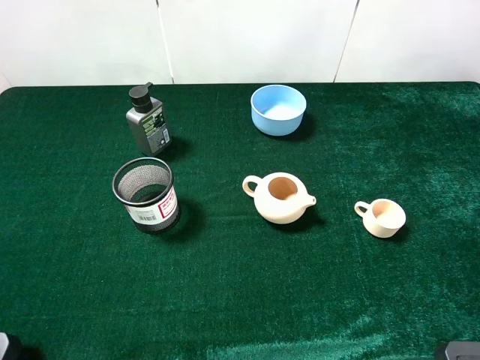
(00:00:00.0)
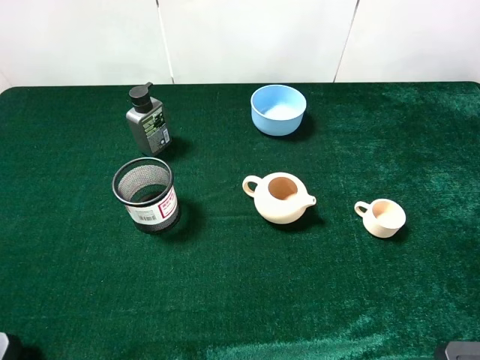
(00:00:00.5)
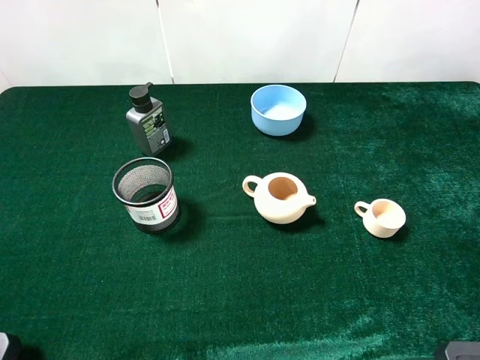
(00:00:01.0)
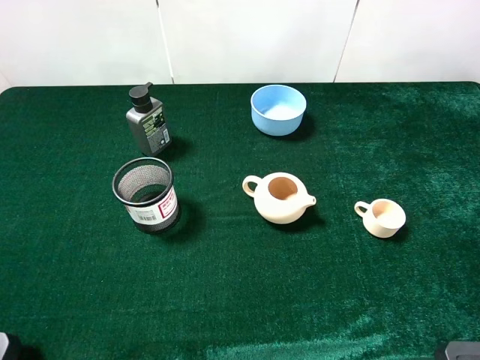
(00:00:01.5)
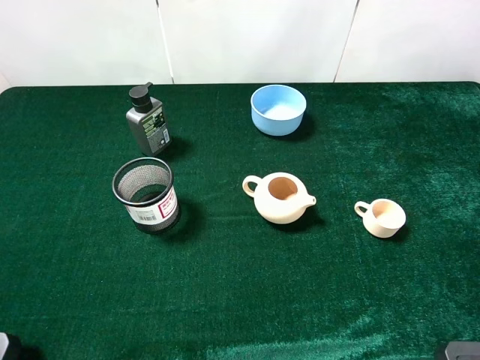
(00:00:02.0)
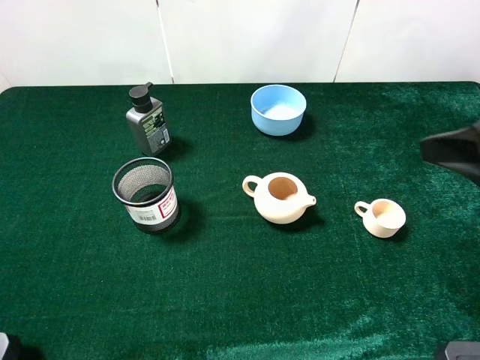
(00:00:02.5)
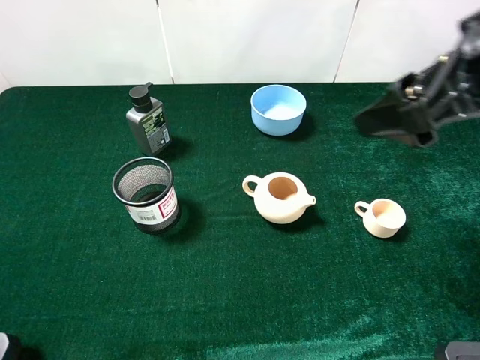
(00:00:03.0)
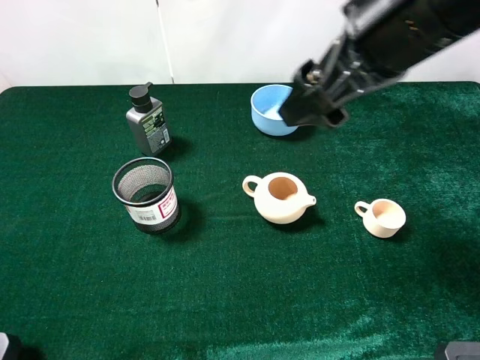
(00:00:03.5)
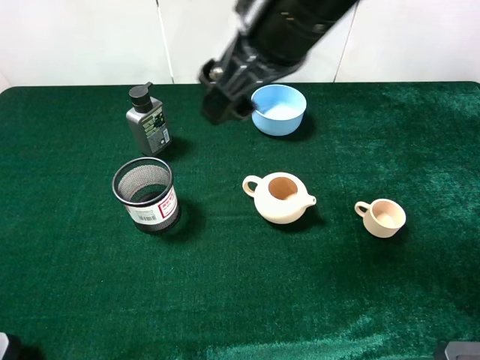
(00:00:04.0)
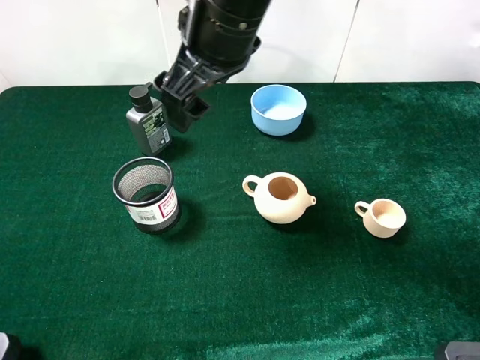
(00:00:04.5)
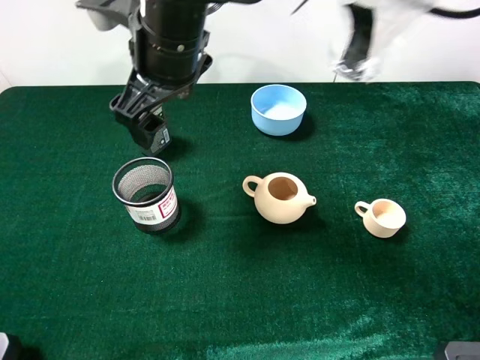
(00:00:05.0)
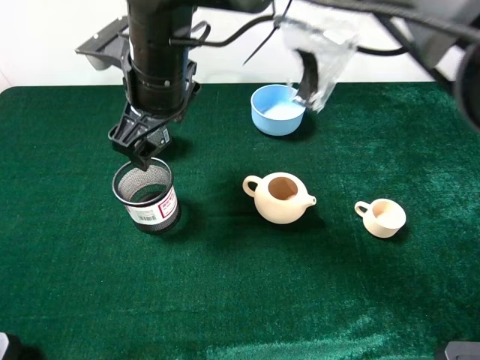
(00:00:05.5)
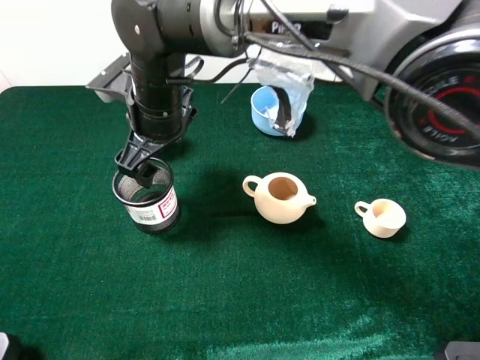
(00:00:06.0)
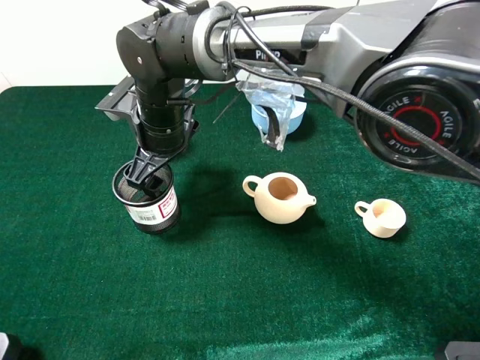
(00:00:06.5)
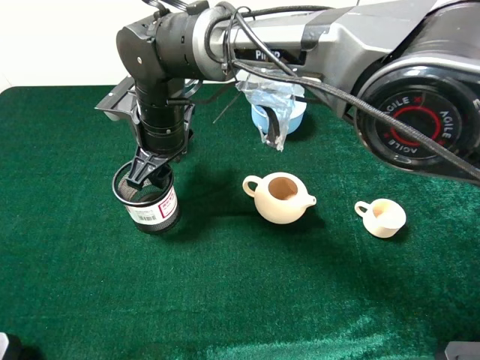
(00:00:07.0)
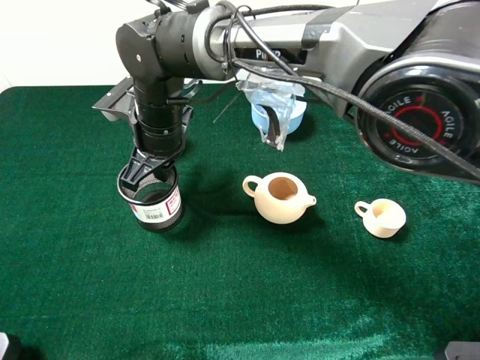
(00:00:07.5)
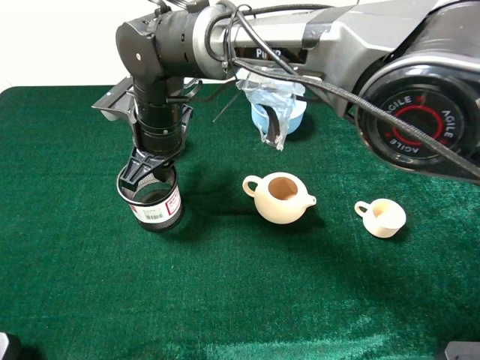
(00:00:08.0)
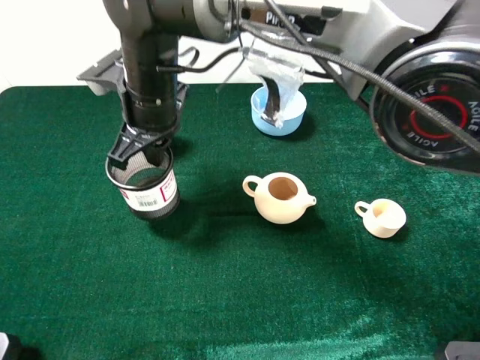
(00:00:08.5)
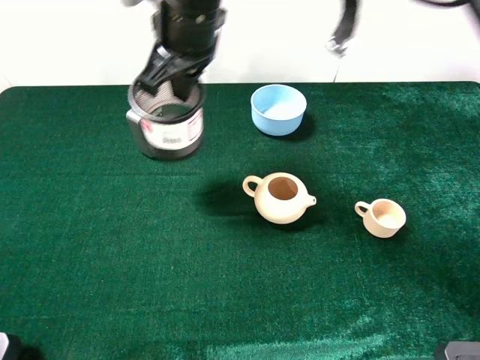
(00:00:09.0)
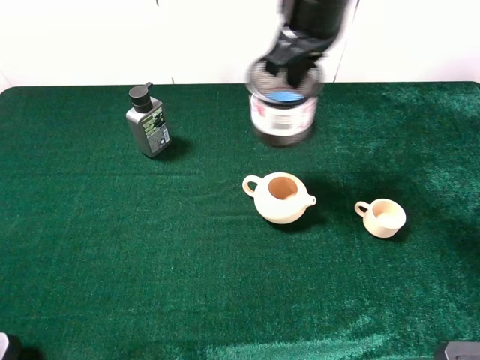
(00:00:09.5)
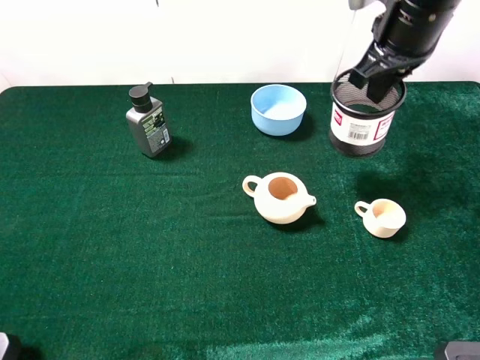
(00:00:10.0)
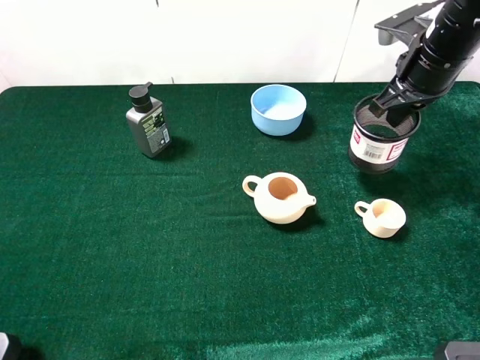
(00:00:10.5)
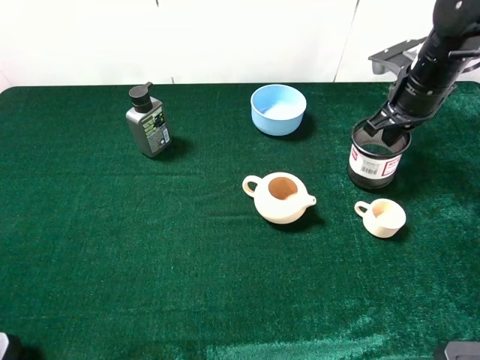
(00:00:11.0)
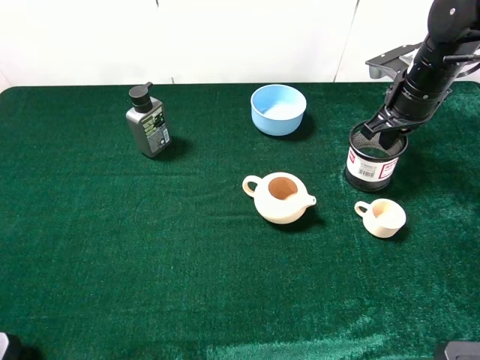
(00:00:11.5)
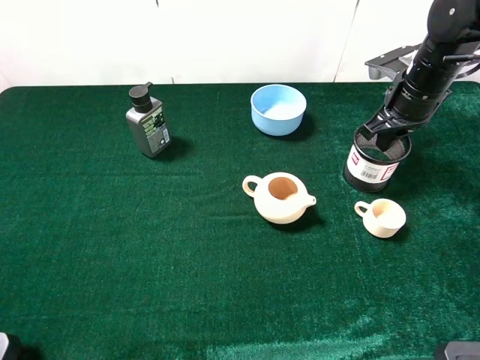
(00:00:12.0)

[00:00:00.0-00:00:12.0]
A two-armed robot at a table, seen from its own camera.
Task of the whole recording: the gripper move the object.
Step, 00:00:00.0 to 00:00:07.5: Grasp the pen container with the right gripper.
00:00:02.0 to 00:00:04.0: The right gripper goes approximately 30 cm to the left and forward.
00:00:04.0 to 00:00:06.0: The right gripper moves to the left and downward, roughly 20 cm.
00:00:06.0 to 00:00:08.0: The right gripper closes.
00:00:08.0 to 00:00:10.0: The right gripper travels to the right and upward by roughly 30 cm.
00:00:10.0 to 00:00:12.0: The right gripper travels downward and to the right by about 10 cm.

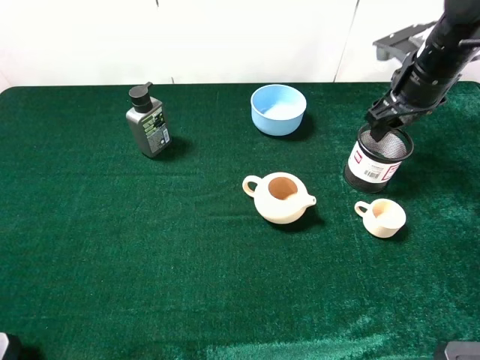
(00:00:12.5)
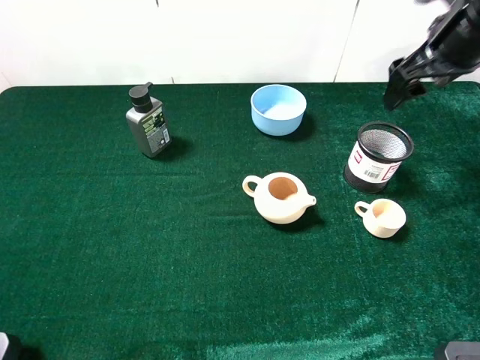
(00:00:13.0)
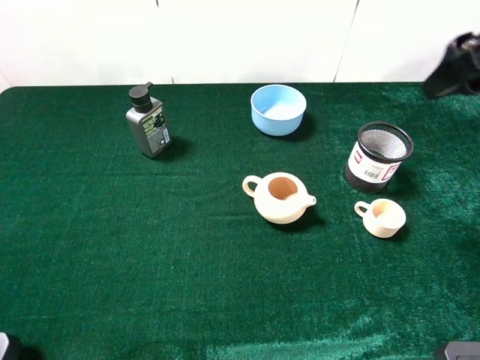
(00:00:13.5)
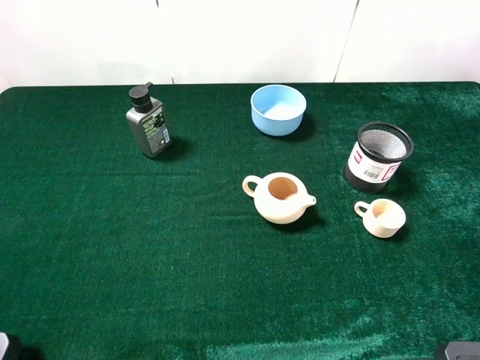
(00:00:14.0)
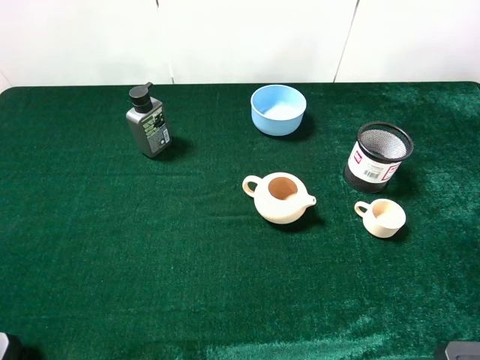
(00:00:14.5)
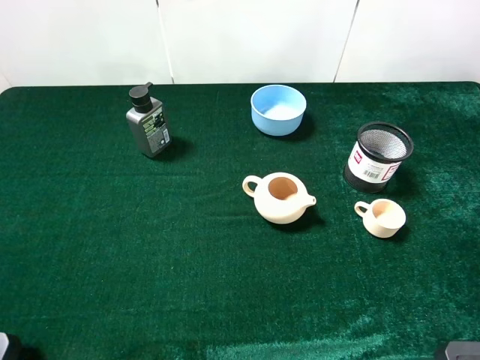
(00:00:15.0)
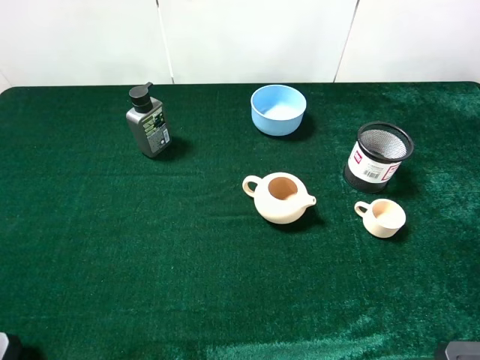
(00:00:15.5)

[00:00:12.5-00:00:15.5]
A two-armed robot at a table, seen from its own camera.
Task of the whole recording: the gripper move the object.
00:00:12.5 to 00:00:14.0: The right gripper travels backward and upward by approximately 30 cm.

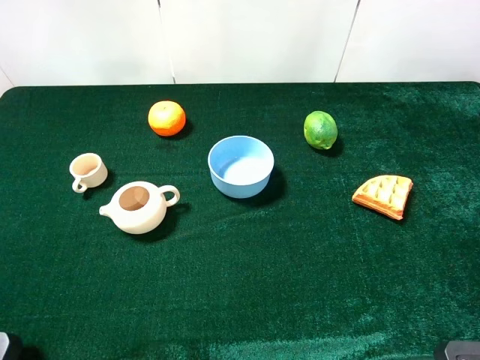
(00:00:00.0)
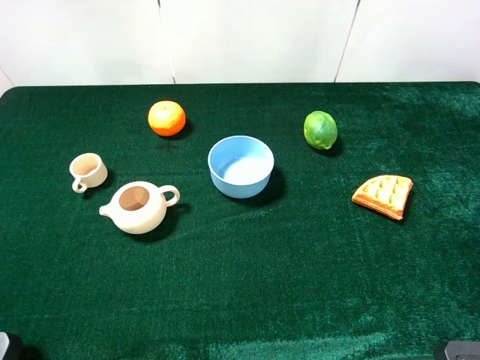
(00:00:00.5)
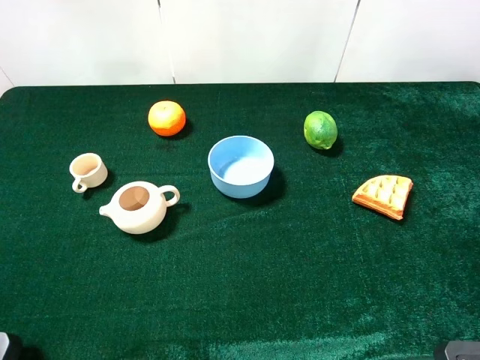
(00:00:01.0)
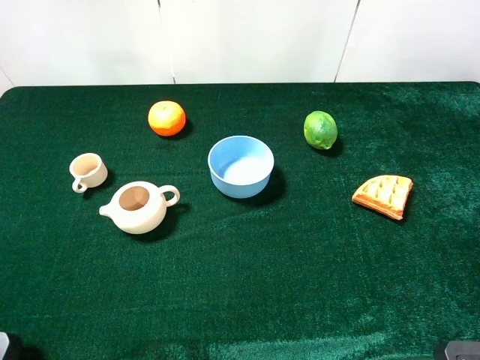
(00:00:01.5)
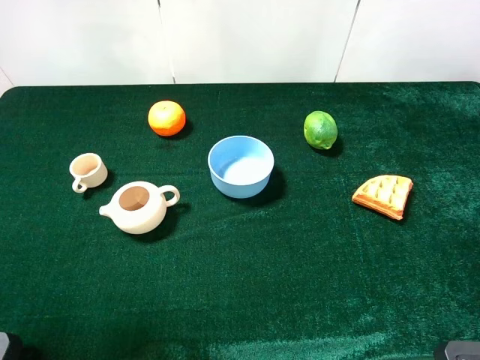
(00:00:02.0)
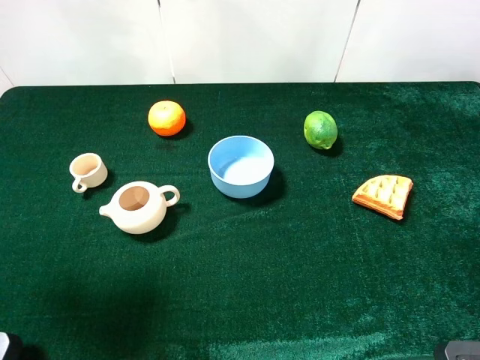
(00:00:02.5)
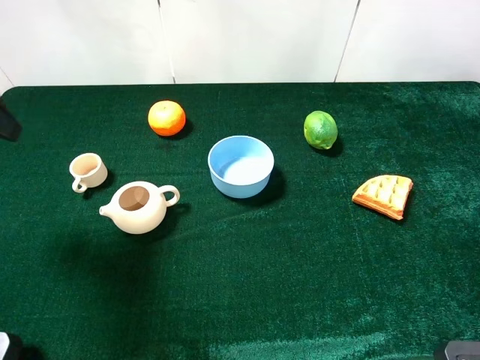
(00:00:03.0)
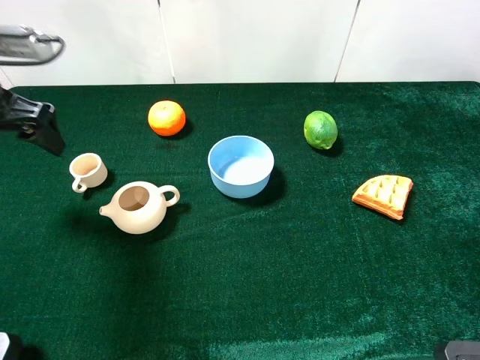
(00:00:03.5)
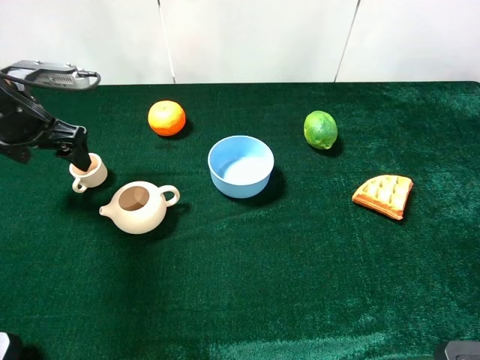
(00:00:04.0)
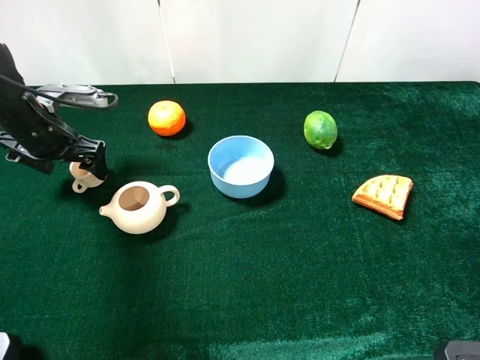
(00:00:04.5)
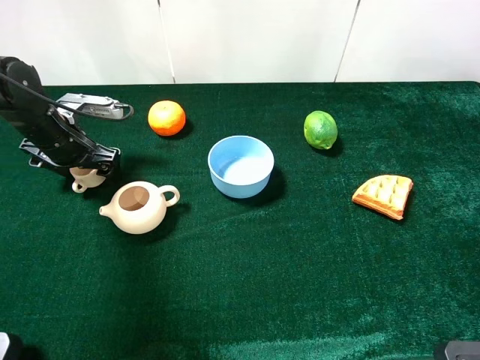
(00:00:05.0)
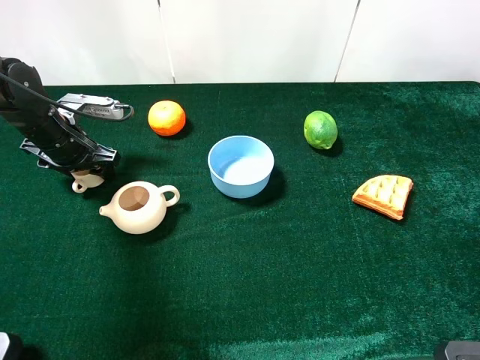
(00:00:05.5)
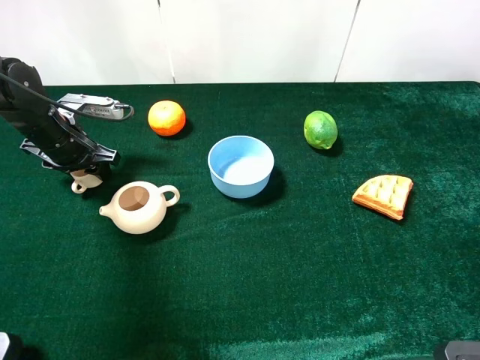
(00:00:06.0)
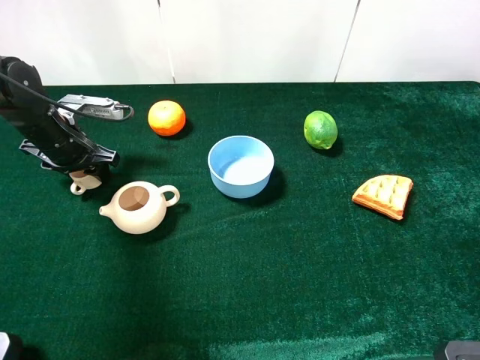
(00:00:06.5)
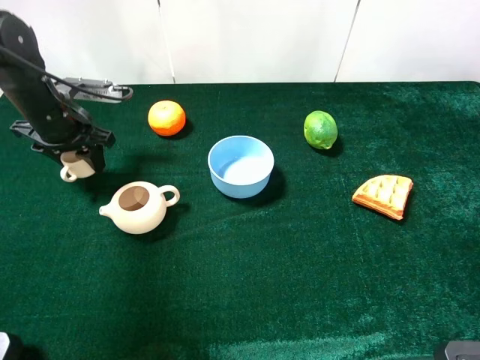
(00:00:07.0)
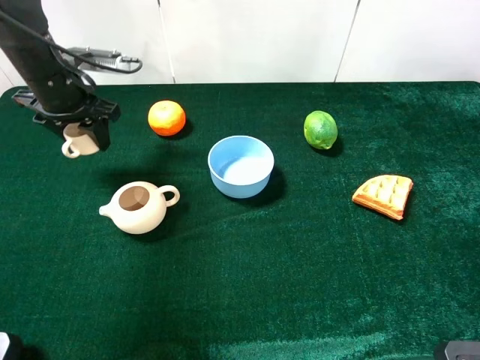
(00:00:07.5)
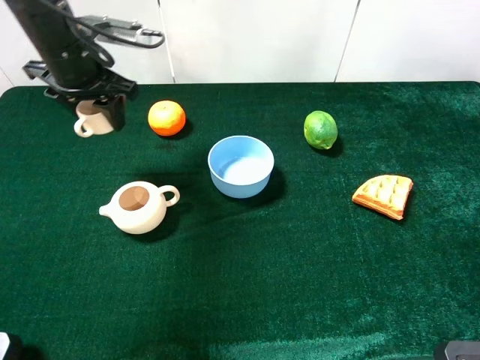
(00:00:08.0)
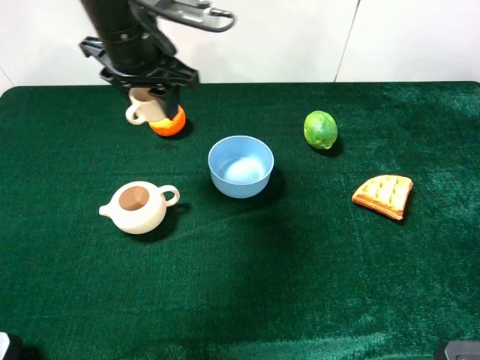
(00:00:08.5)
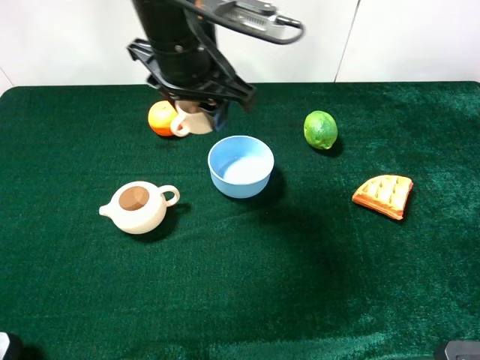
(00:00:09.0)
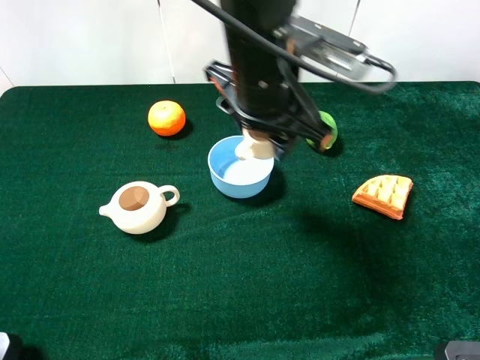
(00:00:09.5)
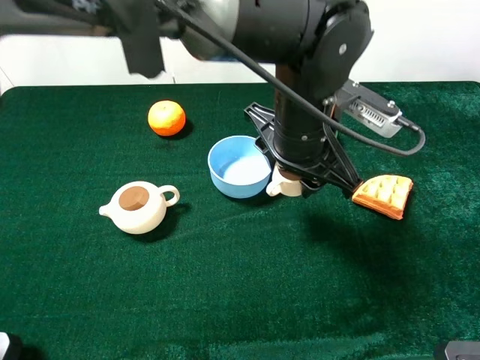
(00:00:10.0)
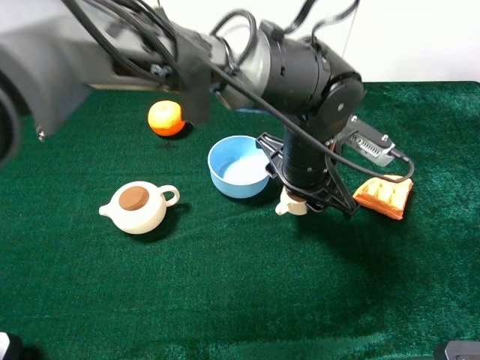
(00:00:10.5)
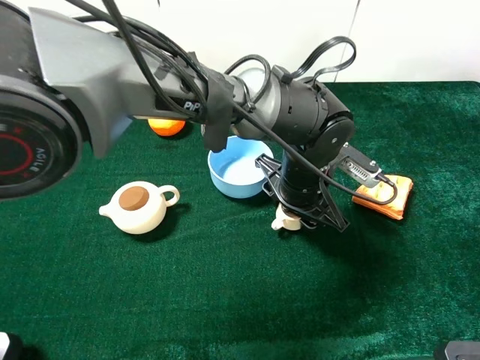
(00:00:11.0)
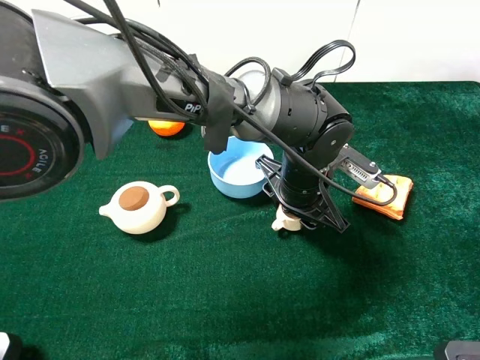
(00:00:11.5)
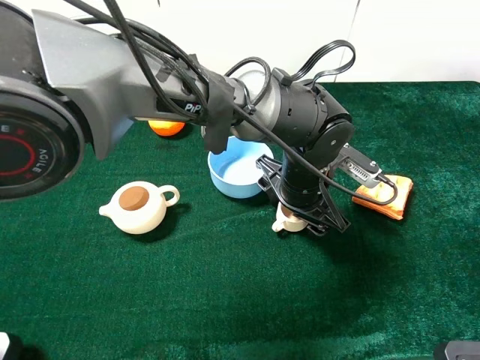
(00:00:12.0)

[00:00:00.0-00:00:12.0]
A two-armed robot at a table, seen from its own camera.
Task of the whole recording: the gripper move the object.
Step, 00:00:00.0 to 00:00:06.0: Grasp the tea cup with the left gripper.
Step, 00:00:06.5 to 00:00:12.0: Place the tea cup on the table with the left gripper.
00:00:02.0 to 00:00:04.0: The left gripper shifts roughly 25 cm forward and downward.
00:00:04.0 to 00:00:06.0: The left gripper goes roughly 10 cm downward, and closes.
00:00:06.0 to 00:00:08.0: The left gripper heads upward and to the right, covering about 15 cm.
00:00:08.0 to 00:00:10.0: The left gripper heads to the right, covering roughly 30 cm.
00:00:10.0 to 00:00:12.0: The left gripper moves downward, approximately 10 cm, and opens up.
